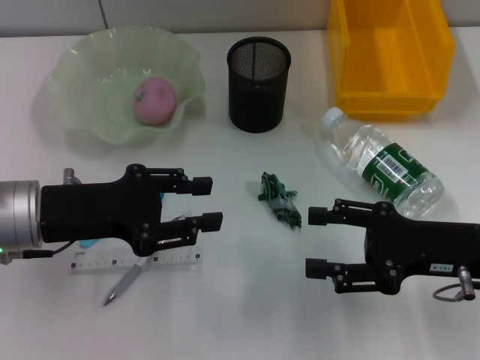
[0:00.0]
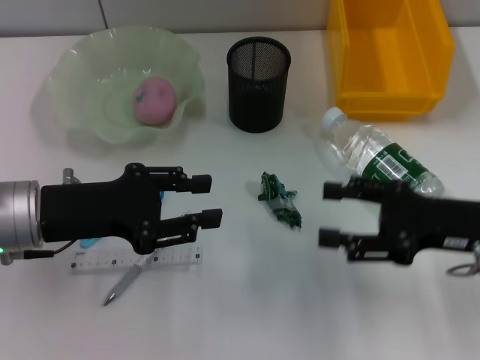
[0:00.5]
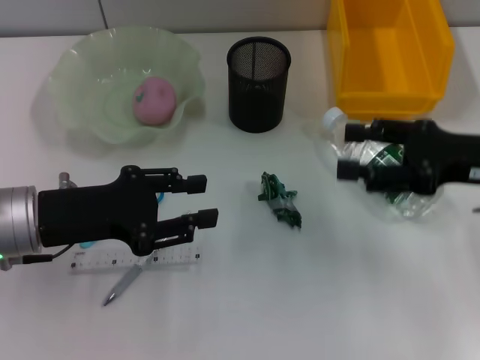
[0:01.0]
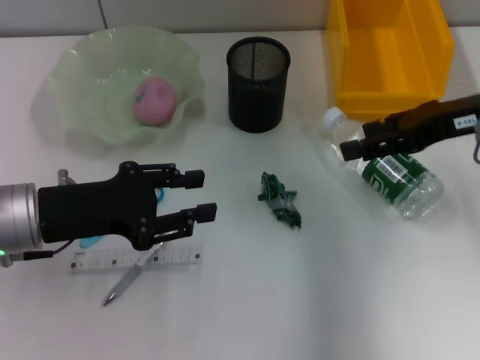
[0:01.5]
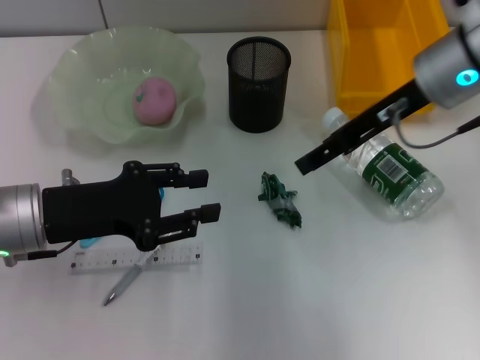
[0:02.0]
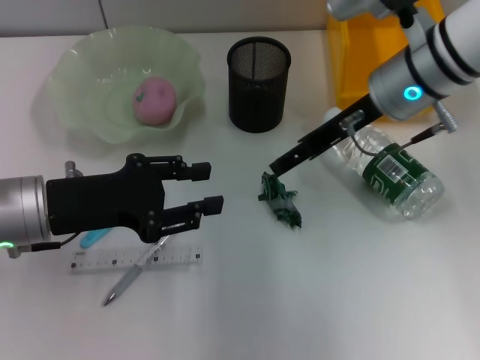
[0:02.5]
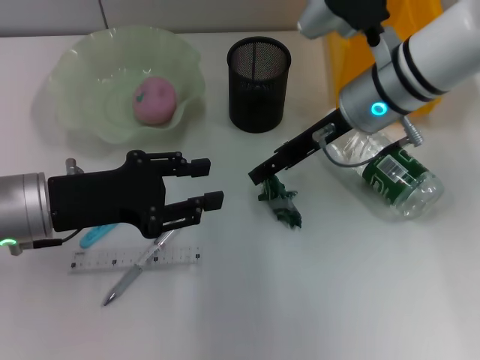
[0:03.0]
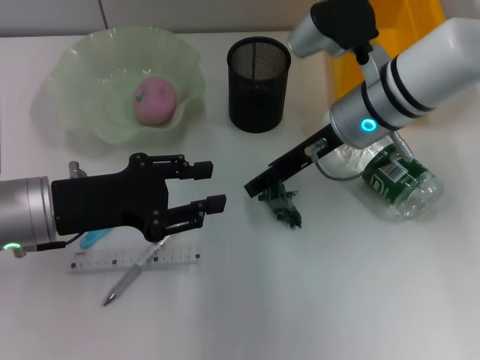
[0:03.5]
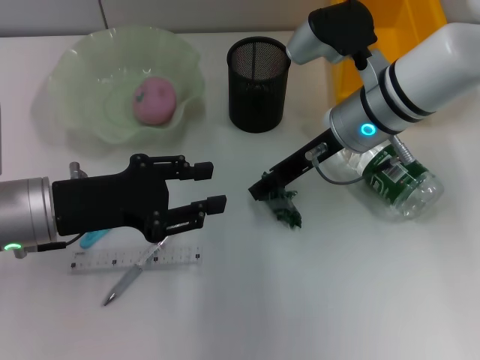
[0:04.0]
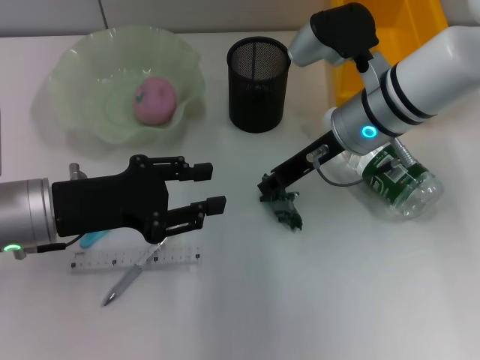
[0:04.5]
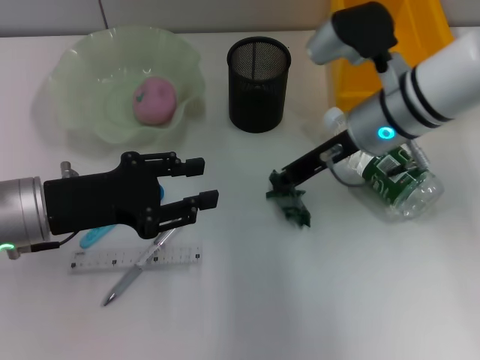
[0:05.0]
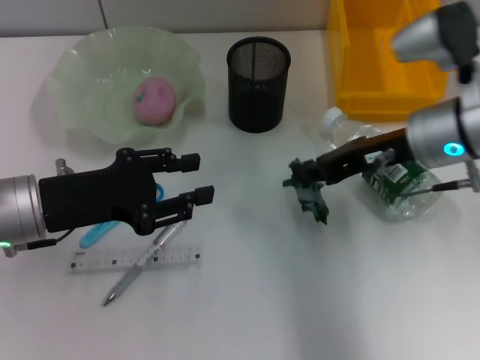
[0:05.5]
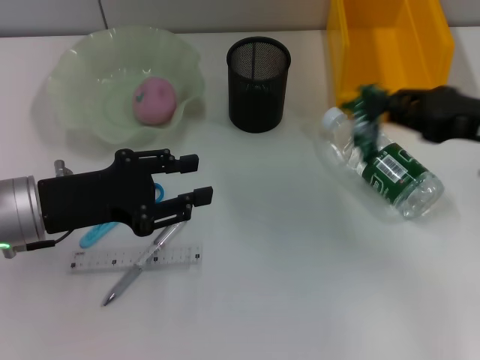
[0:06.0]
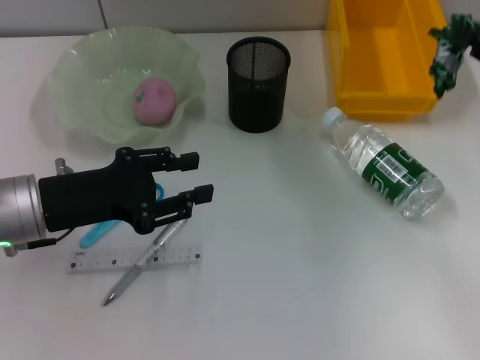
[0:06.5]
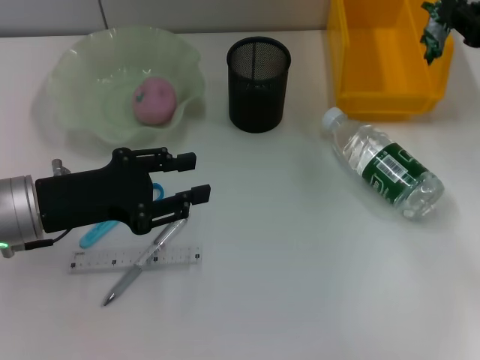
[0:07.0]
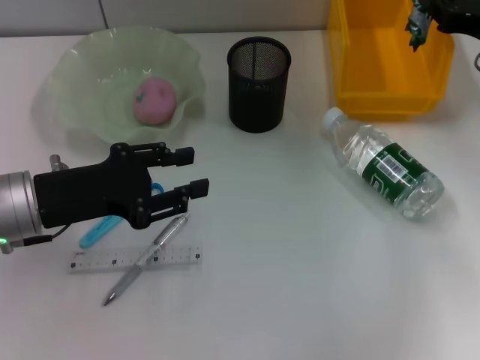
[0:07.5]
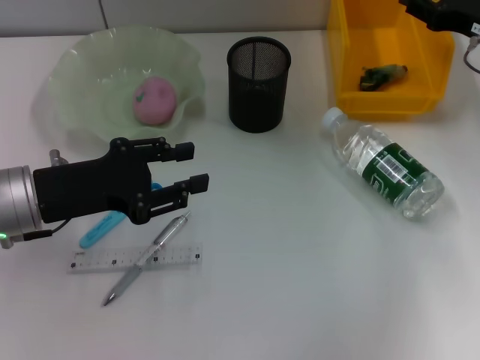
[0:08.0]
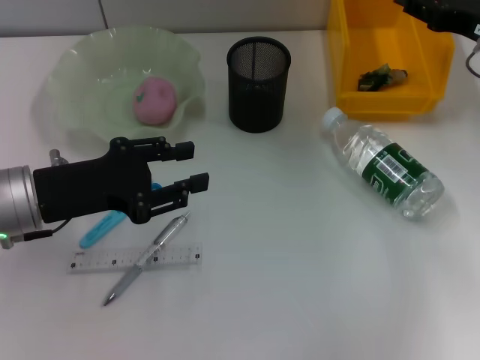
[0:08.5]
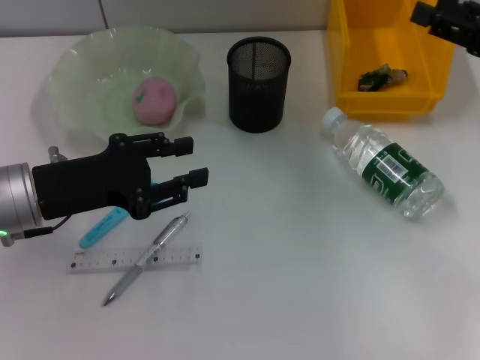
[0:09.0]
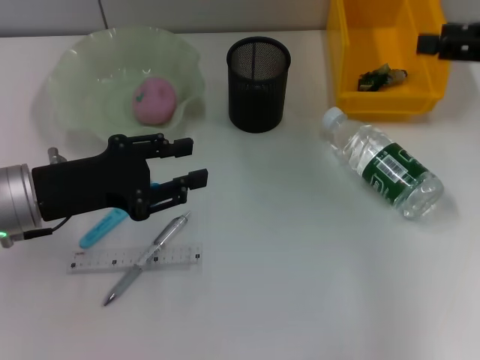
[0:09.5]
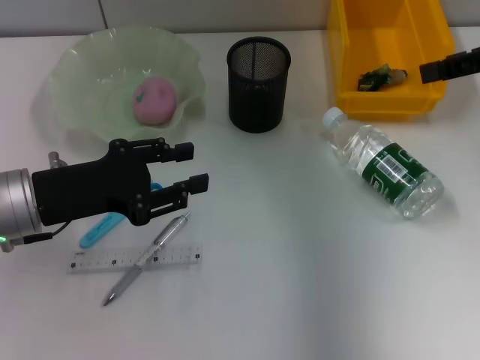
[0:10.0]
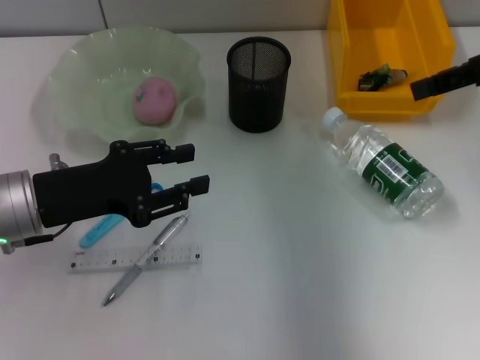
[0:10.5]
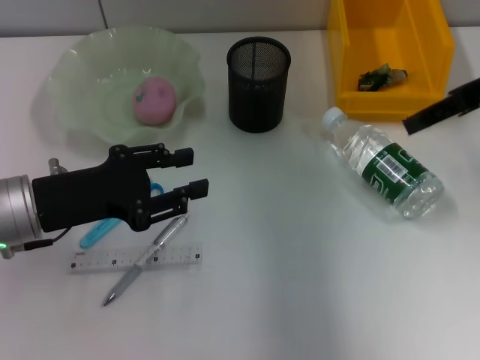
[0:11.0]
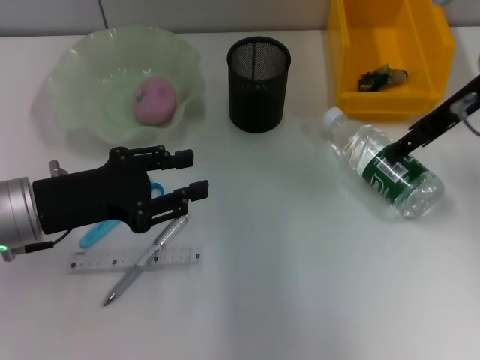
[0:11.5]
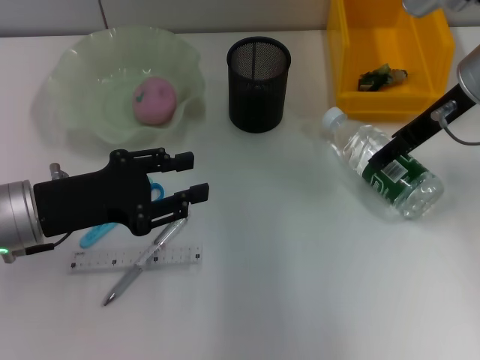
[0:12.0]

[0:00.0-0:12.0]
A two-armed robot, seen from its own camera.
Step, 0:00.0 to 0:04.5: Grab the plastic with the right hand.
Step, 0:05.0 to 0:08.0: Place the plastic into the trash can with the right hand.
0:00.0 to 0:02.0: The right gripper heads forward, upward and to the left, covering roughly 20 cm.
0:02.0 to 0:04.0: The right gripper heads downward and to the left, covering roughly 10 cm.
0:04.0 to 0:06.0: The right gripper moves to the right and backward, about 20 cm, and closes.
0:06.0 to 0:08.0: The right gripper travels forward by roughly 10 cm, and opens its fingers.
0:08.0 to 0:10.0: The right gripper heads upward and backward, covering approximately 15 cm, and opens its fingers.
0:10.0 to 0:12.0: The right gripper moves to the left and downward, approximately 10 cm.

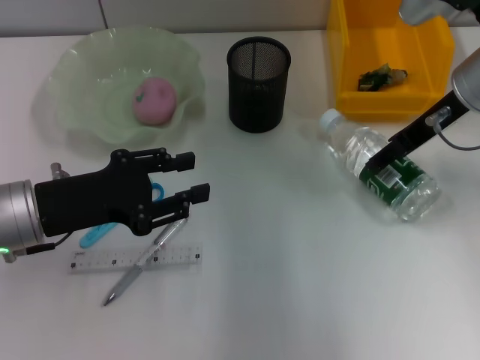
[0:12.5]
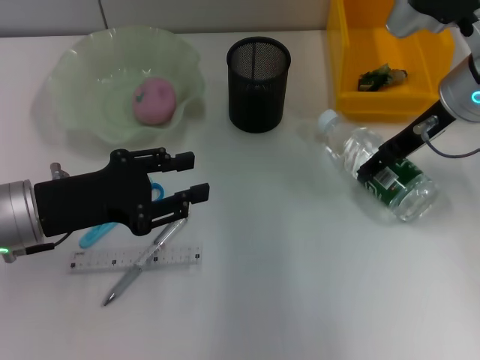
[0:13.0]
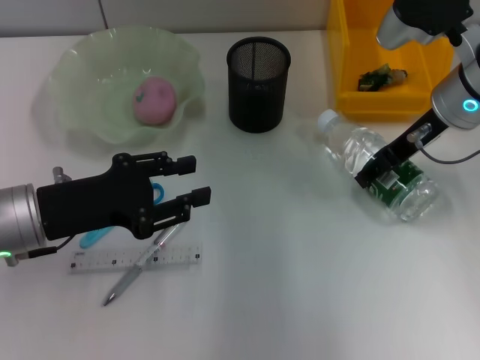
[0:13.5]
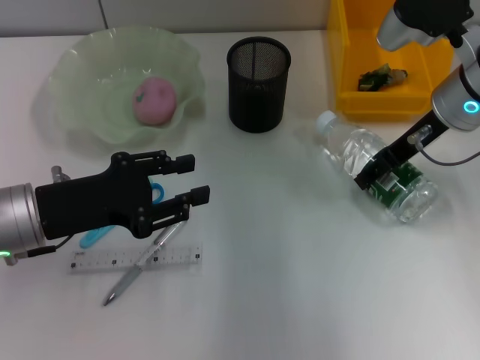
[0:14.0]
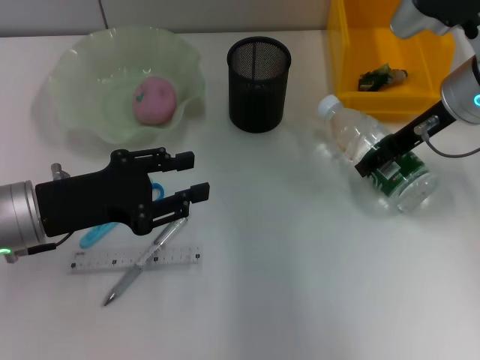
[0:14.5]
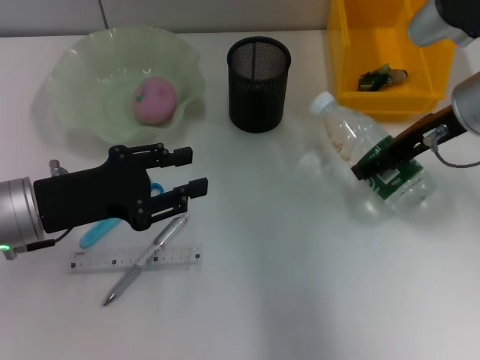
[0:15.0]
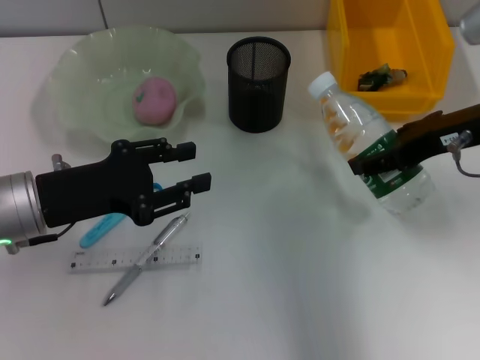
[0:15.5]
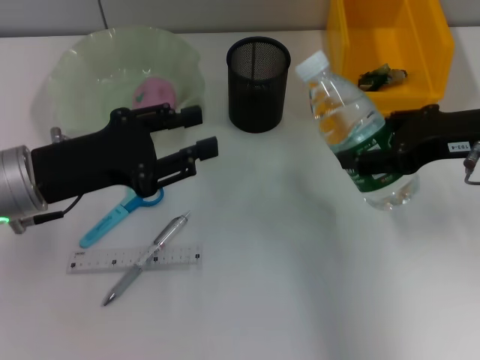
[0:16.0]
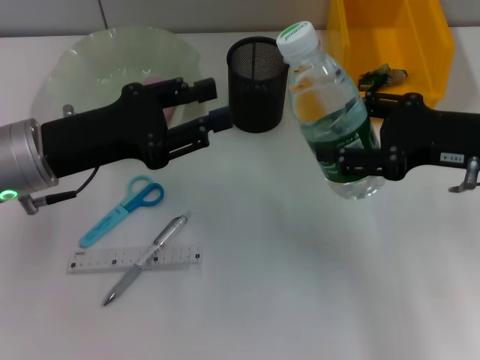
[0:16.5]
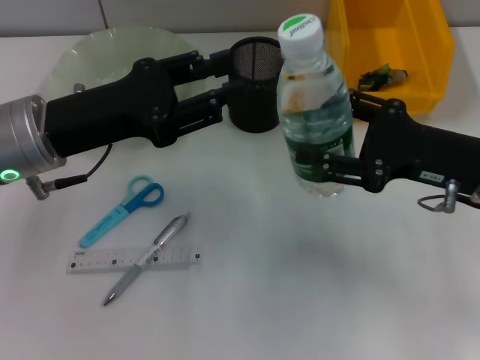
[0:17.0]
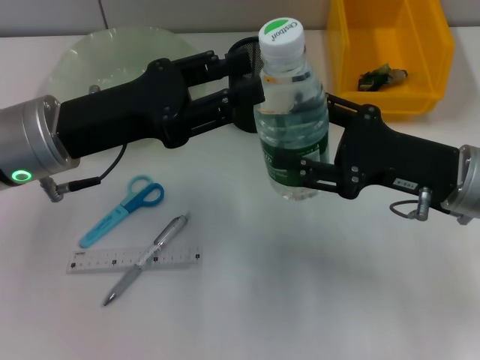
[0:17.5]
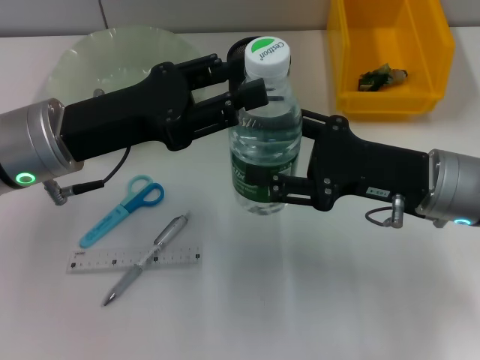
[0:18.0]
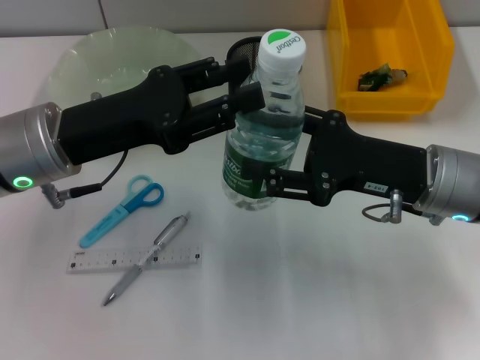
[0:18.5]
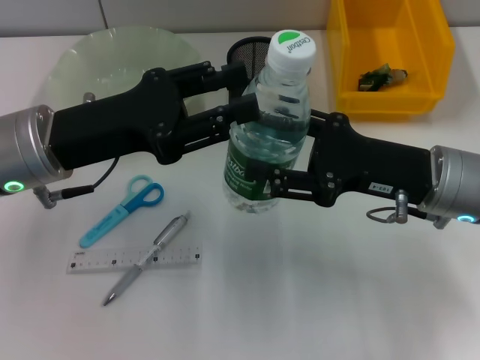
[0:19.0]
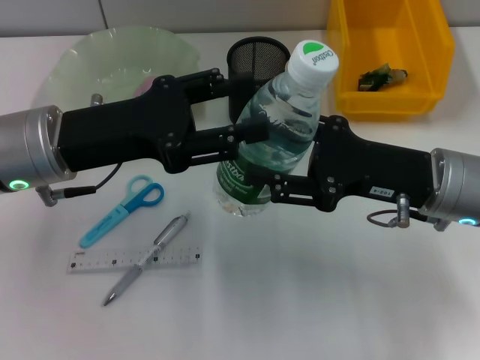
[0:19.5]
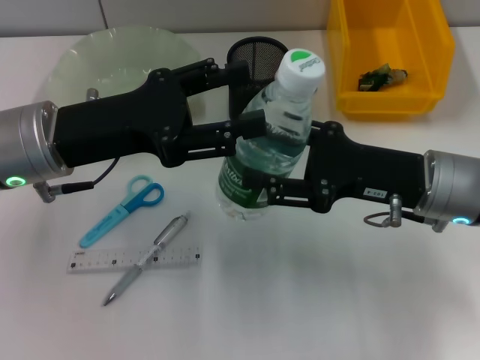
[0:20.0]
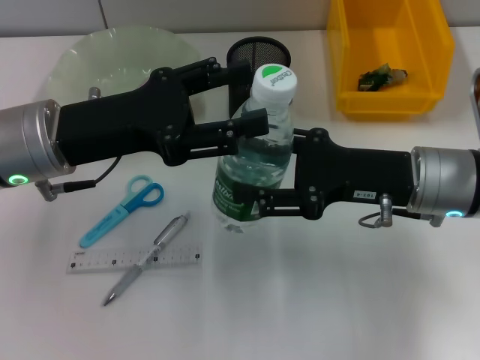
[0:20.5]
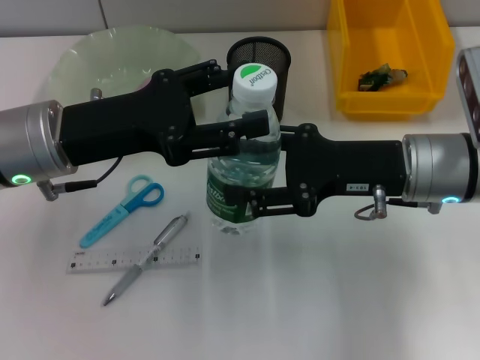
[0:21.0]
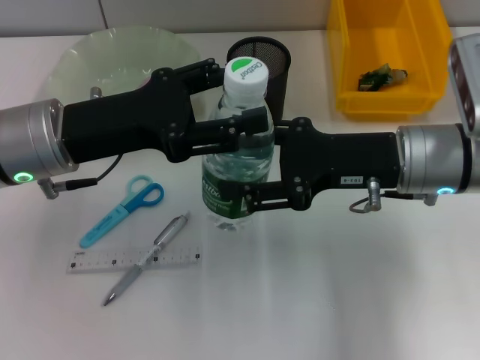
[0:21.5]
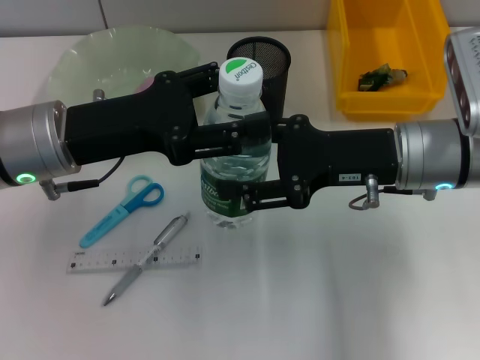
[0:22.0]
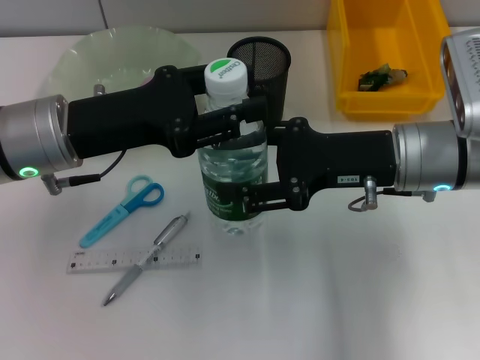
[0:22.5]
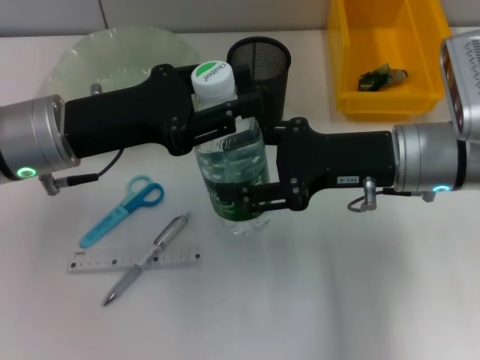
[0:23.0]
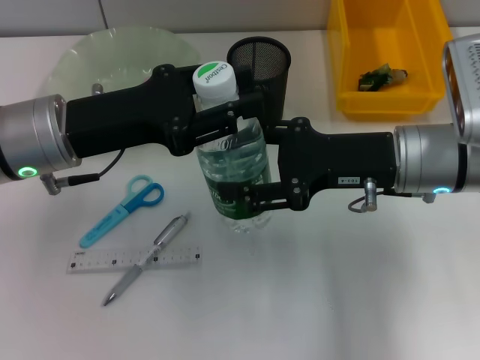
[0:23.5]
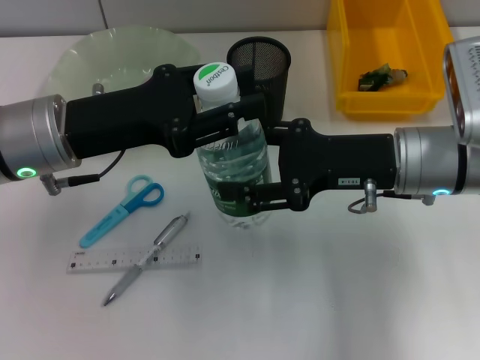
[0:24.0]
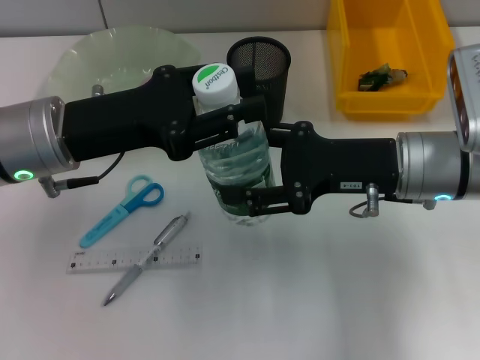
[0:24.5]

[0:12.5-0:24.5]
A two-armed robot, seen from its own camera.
Step, 0:12.5 to 0:14.5: Grab the water bottle with the right hand.
0:12.5 to 0:14.5: The grippers move only a little.
0:14.5 to 0:16.5: The right gripper travels backward by roughly 10 cm. Meanwhile the left gripper moves some 5 cm.
0:16.5 to 0:18.5: The right gripper is displaced downward and to the left by approximately 10 cm.
0:18.5 to 0:20.5: The left gripper opens its fingers.
0:20.5 to 0:22.5: The grippers move only a little.
0:22.5 to 0:24.5: Both grippers stay about where they are.

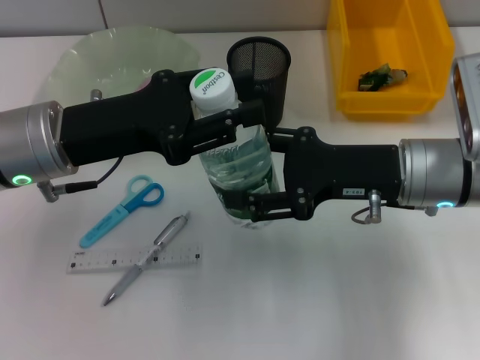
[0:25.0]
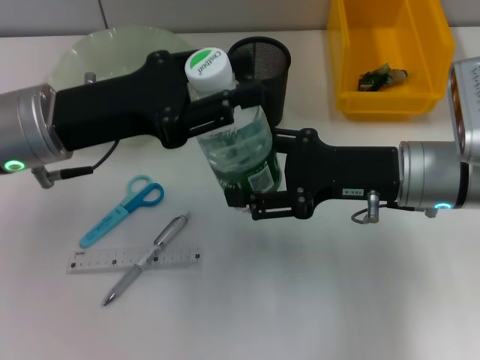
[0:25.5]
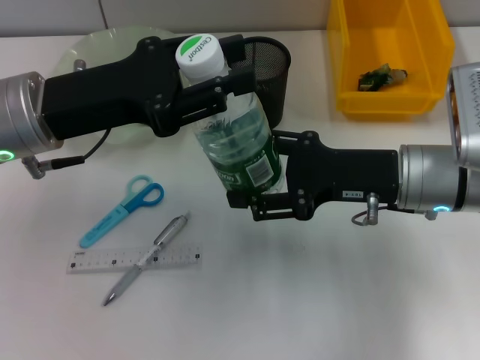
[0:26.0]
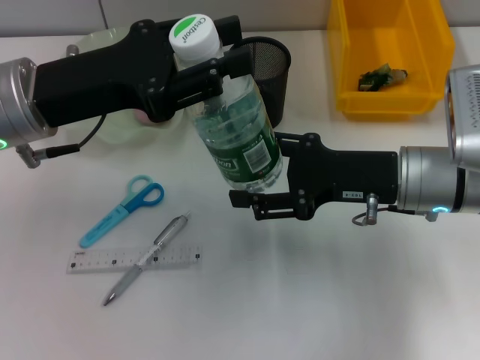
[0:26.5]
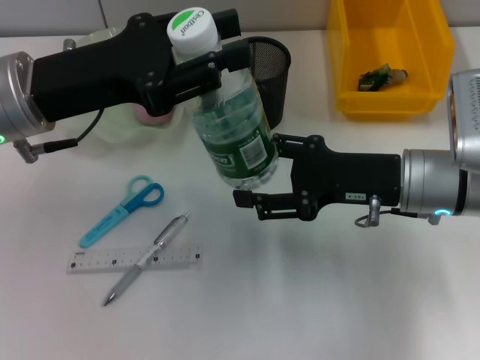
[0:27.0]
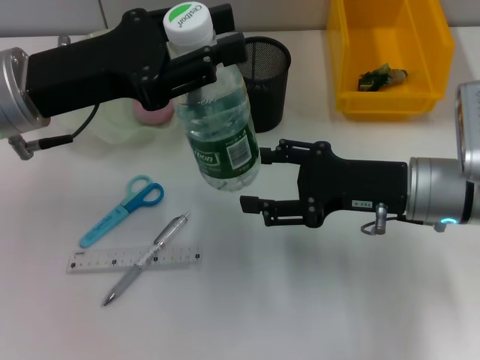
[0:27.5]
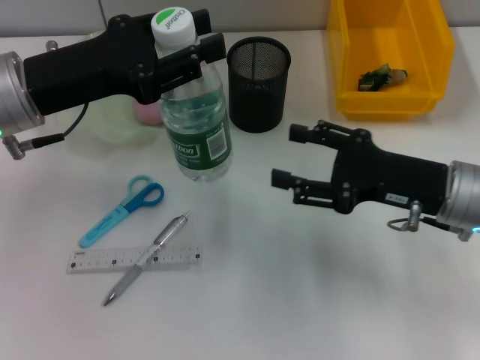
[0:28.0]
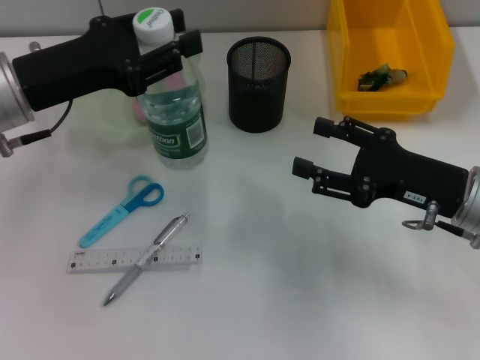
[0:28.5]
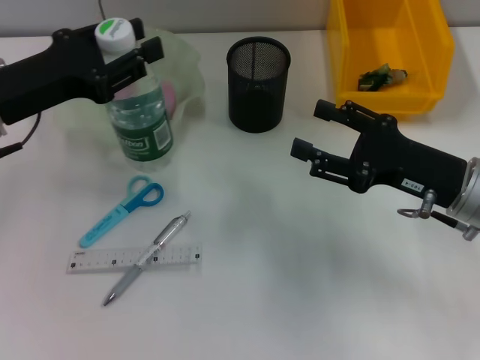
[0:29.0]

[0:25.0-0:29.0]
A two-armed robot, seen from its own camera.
Step, 0:25.0 to 0:27.0: Pass the water bottle from the right hand to the left hand.
0:27.0 to 0:29.0: The right gripper moves about 5 cm. Meanwhile the left gripper travels to the left by some 5 cm.
